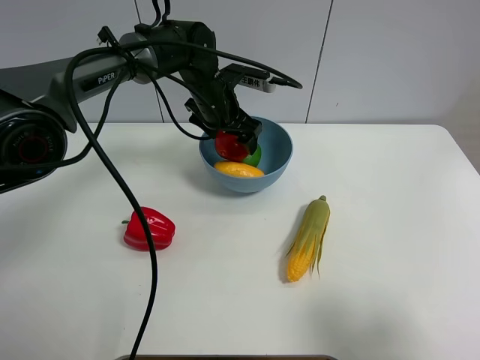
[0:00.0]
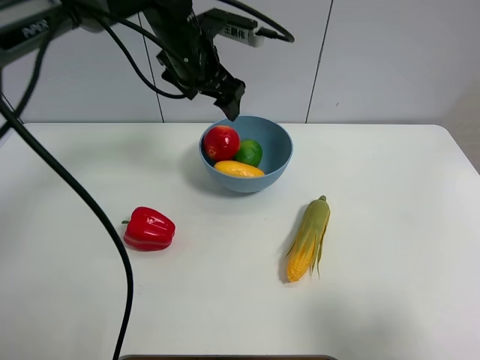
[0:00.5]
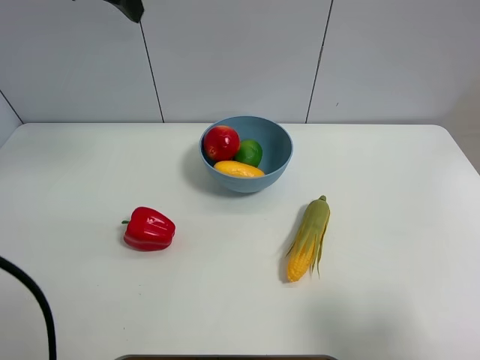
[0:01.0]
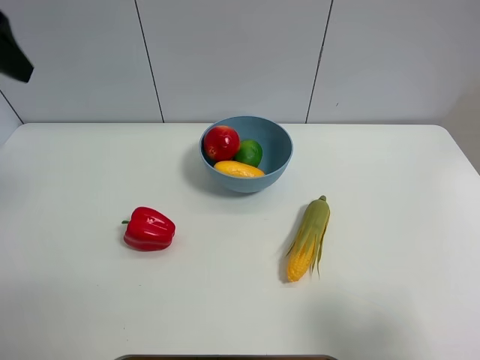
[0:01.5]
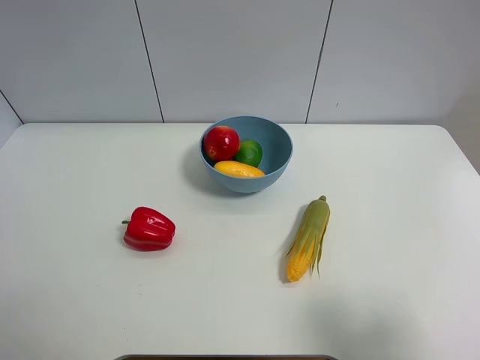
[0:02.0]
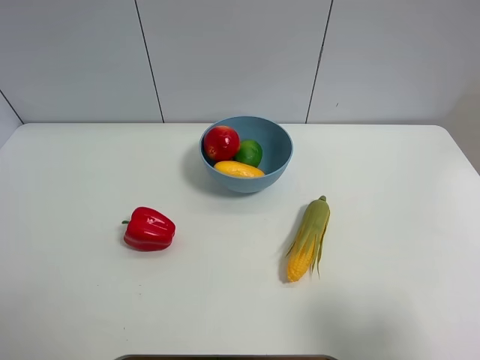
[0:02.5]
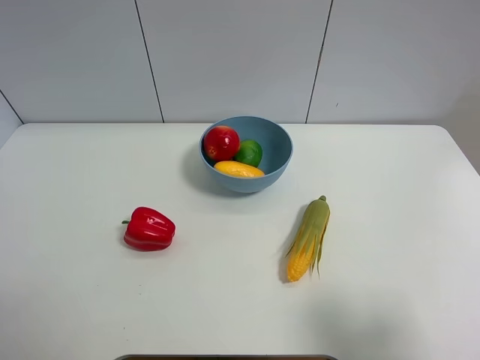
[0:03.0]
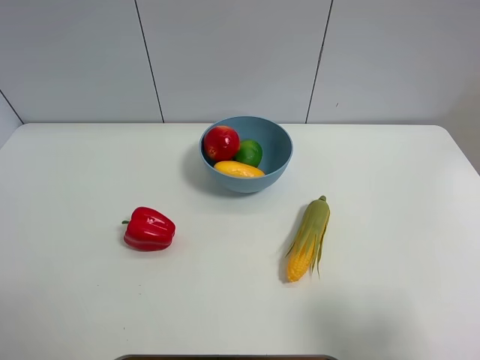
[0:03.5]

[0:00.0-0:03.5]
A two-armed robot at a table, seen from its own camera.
Task of the whole recording: Put the three fruits on the table into a bowl.
0:00.0 to 0:02.0: The left gripper shifts some 50 cm backward, to the left and upward.

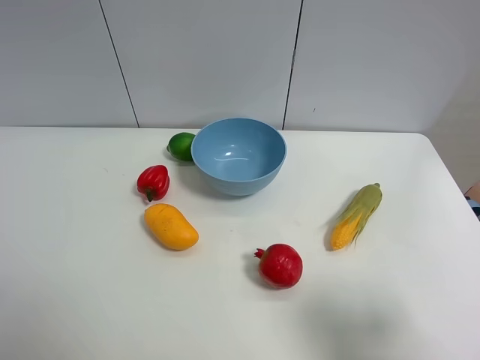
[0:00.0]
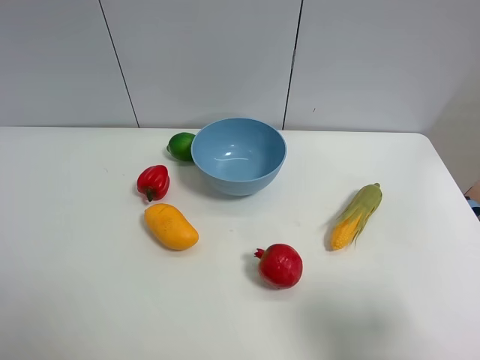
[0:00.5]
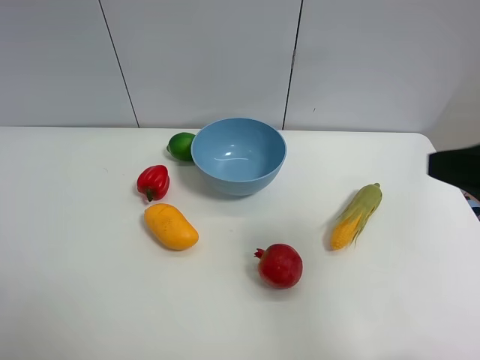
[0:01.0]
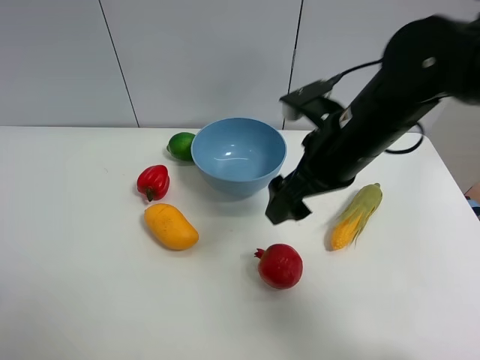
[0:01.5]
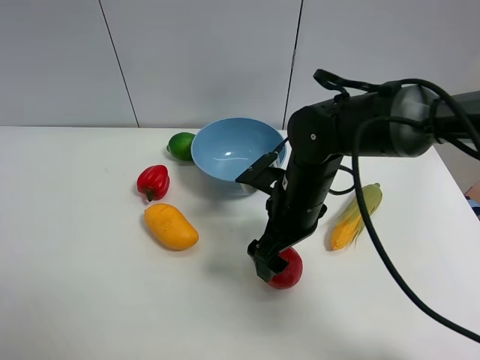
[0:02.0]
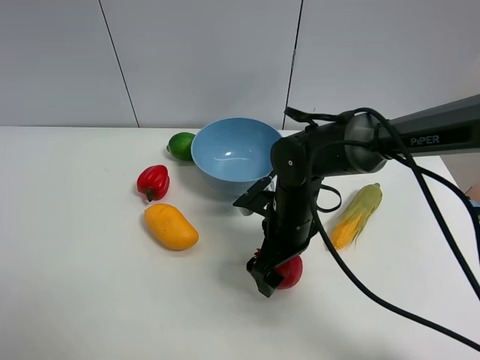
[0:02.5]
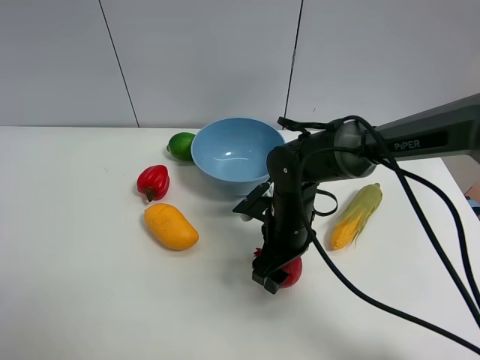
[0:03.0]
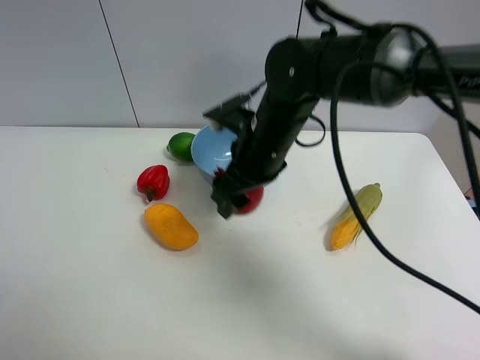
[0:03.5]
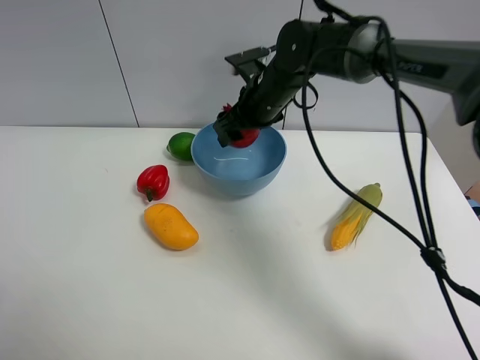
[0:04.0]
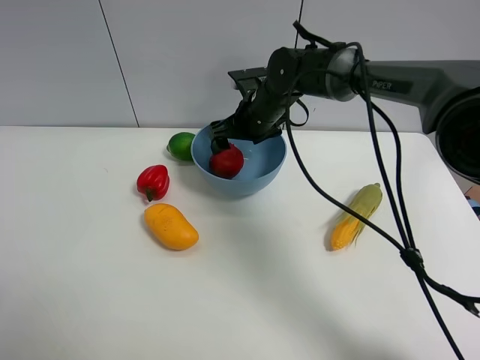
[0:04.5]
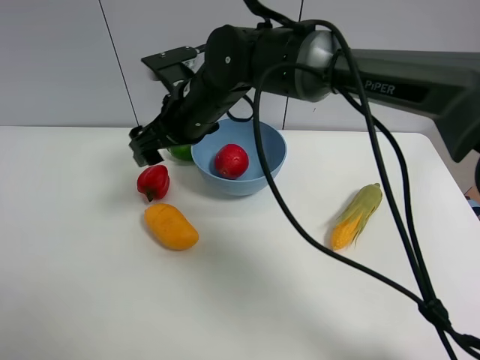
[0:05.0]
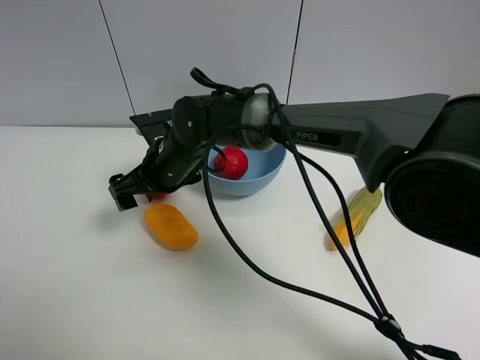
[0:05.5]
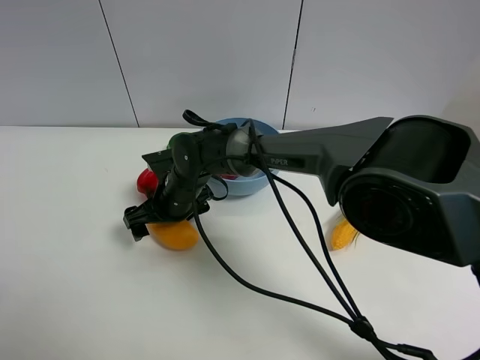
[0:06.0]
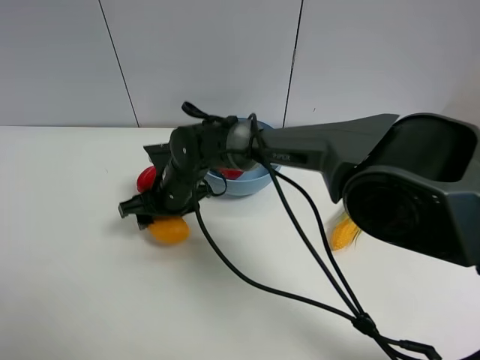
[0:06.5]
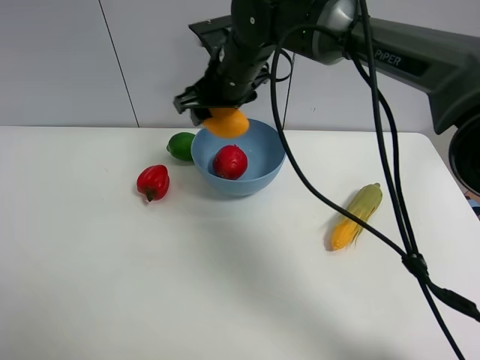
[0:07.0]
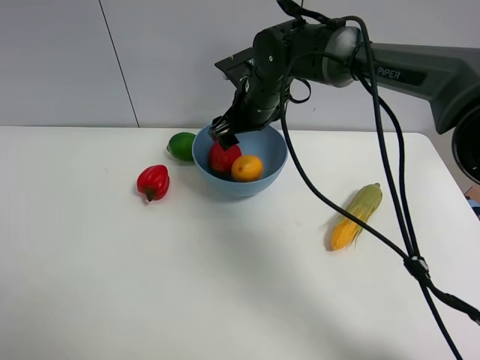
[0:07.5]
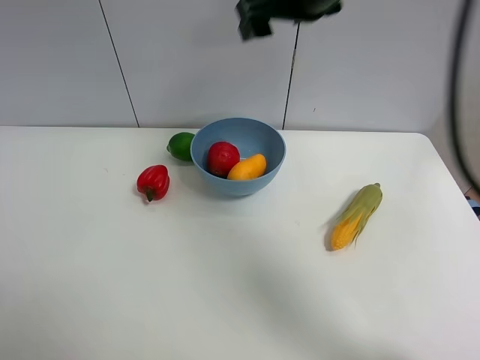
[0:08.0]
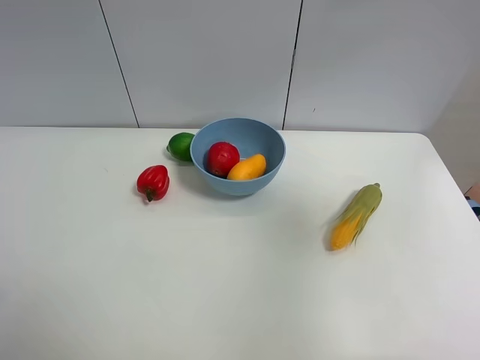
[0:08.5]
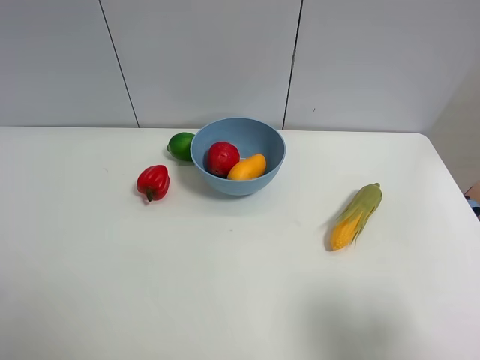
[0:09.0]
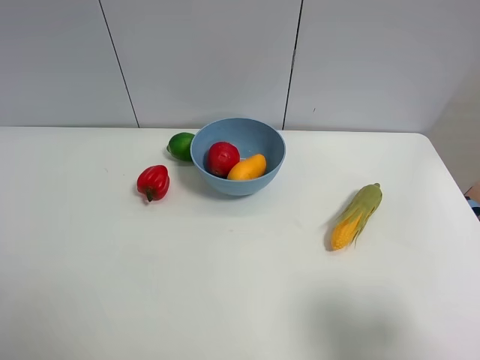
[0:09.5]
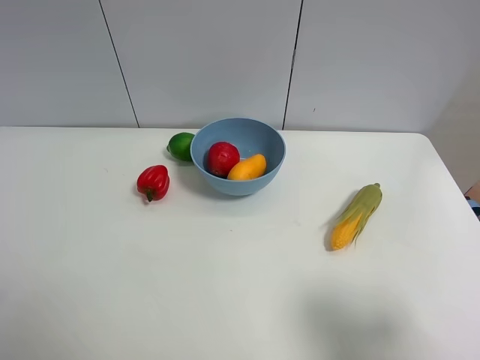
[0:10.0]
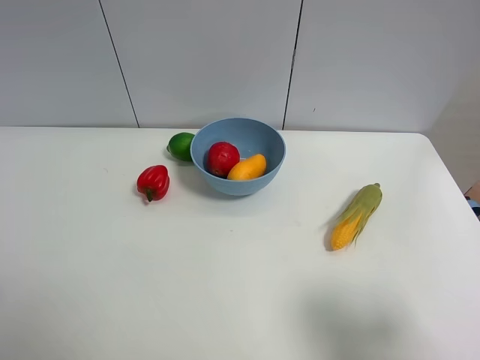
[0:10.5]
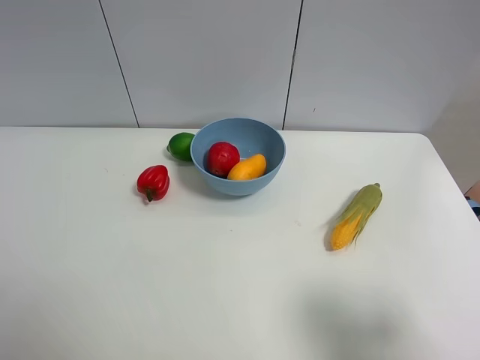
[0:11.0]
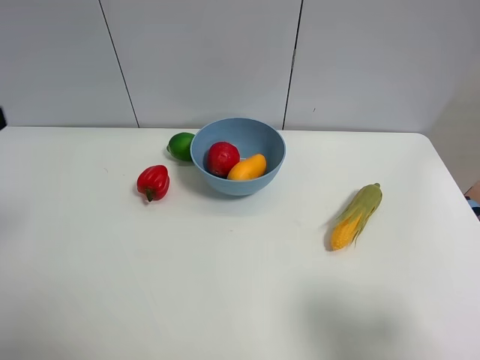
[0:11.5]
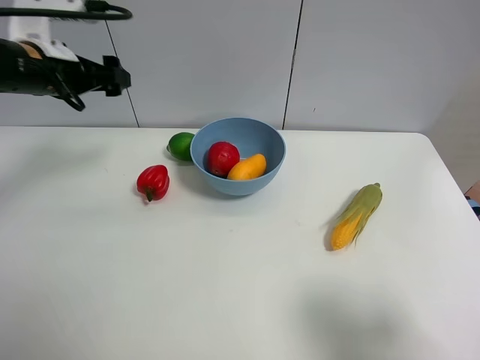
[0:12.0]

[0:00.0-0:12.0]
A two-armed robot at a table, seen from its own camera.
Task of the whole recording: Put the three fruits on the table into a bowl.
Step, 0:00.0 to 0:02.5: Grasp the pomegranate with right gripper.
Step, 0:03.0 to 0:04.5: Place the pomegranate in the blue bowl with right gripper.
Step, 0:05.0 to 0:06.0: Grasp the mango with right gripper.
Step, 0:06.5 to 0:07.0: Place the mango in the blue bowl with right gripper.
0:00.0 to 0:02.0: The right gripper moves forward, to the left and downward, about 35 cm.
0:02.0 to 0:04.0: The right gripper heads forward, covering some 15 cm, and closes up.
0:04.0 to 0:06.0: The right gripper moves to the left, downward and backward, approximately 20 cm, and opens its fingers.
0:06.0 to 0:08.0: The right gripper swings up and down, some 30 cm each way, with 2 reversals, and closes its fingers.
0:08.0 to 0:10.0: The right gripper heads backward, to the right and downward, covering some 40 cm, and opens.
0:10.0 to 0:12.0: The left gripper heads forward, covering roughly 35 cm.

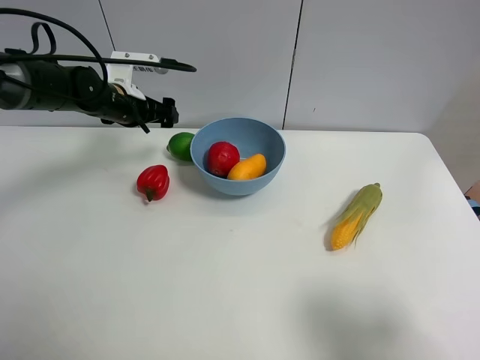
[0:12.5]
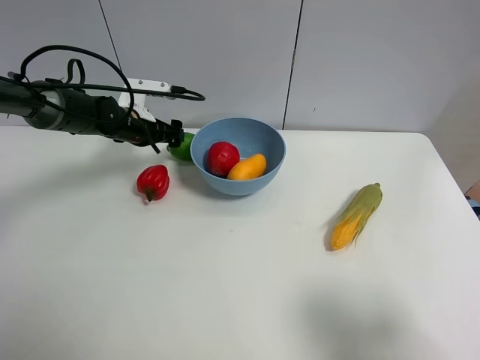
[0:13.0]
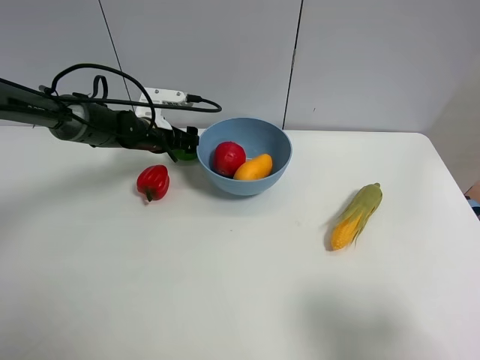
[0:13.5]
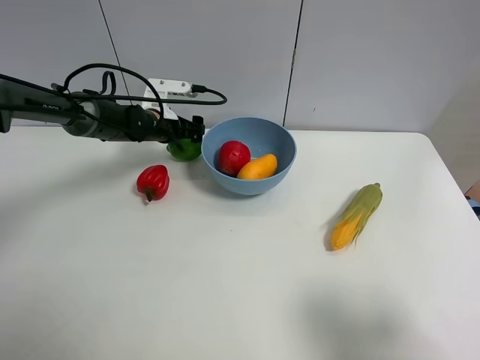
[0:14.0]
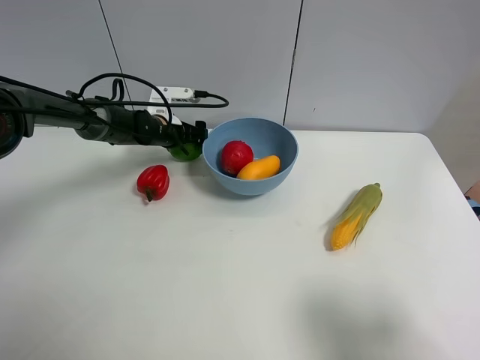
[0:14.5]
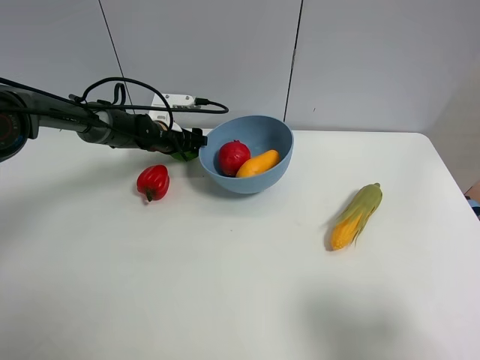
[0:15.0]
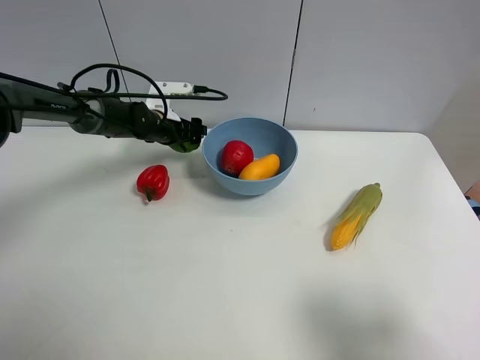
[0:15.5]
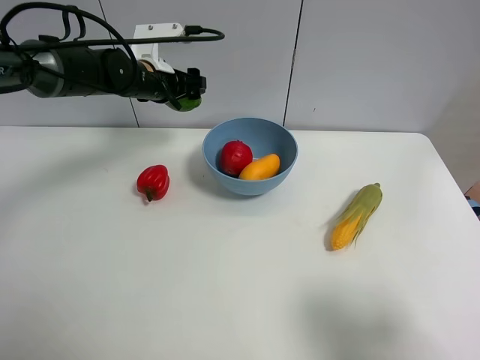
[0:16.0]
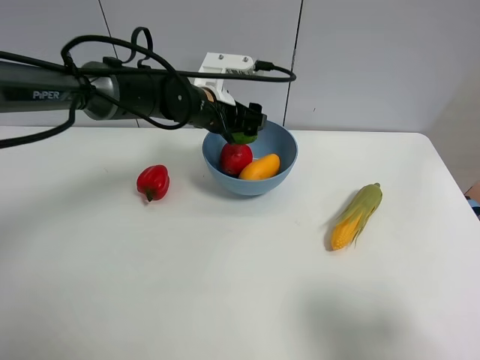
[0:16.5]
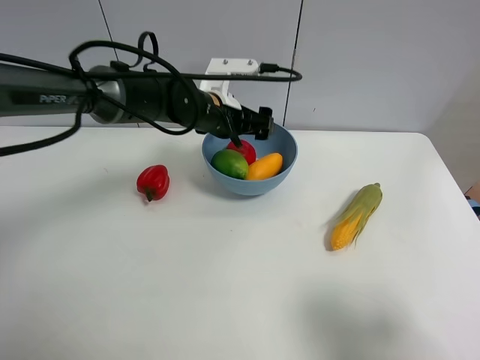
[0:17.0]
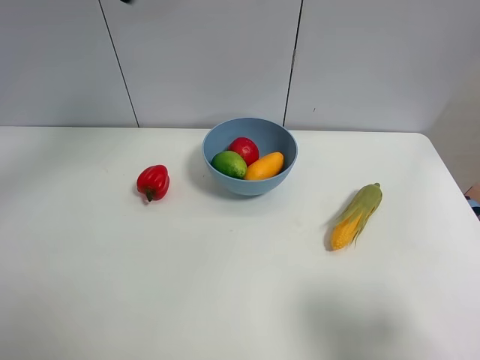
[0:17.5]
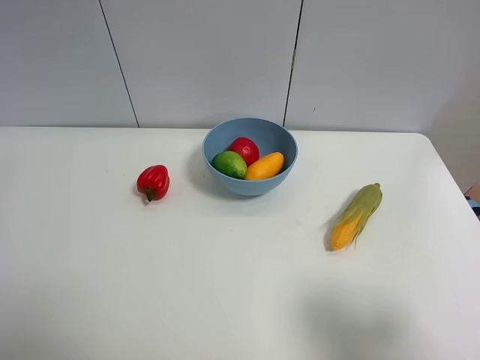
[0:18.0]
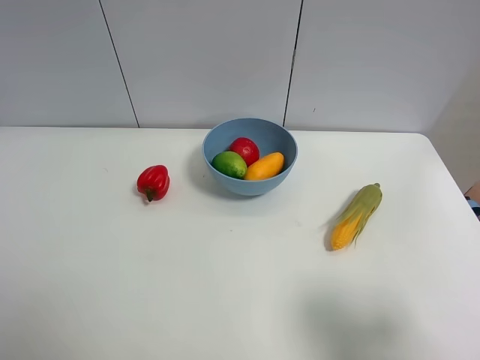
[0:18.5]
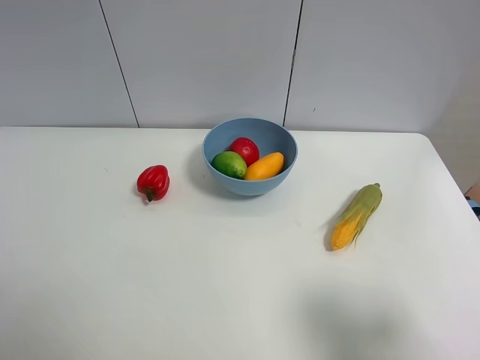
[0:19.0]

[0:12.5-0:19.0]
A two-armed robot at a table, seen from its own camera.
Task of the whole recording: Put the three fruits on the table into a bowl.
Step, 0:12.5 to 0:14.5: Grasp the green lemon with left gripper.
Step, 0:15.0 to 0:17.0: Place the green lemon in the blue bowl with left gripper.
0:12.5 to 0:14.5: The left gripper travels downward by some 10 cm.
0:14.5 to 0:17.0: The left gripper shifts some 20 cm to the right, upward and backward, and closes, then opens again.
0:17.0 to 0:19.0: The left gripper heads backward and to the left, covering approximately 50 cm.

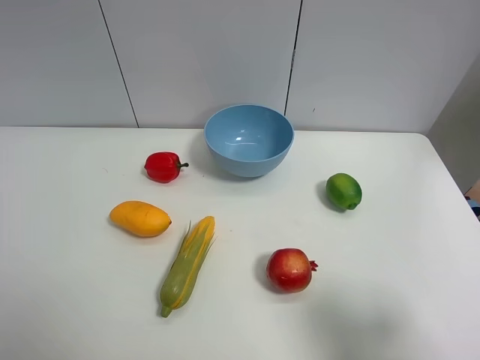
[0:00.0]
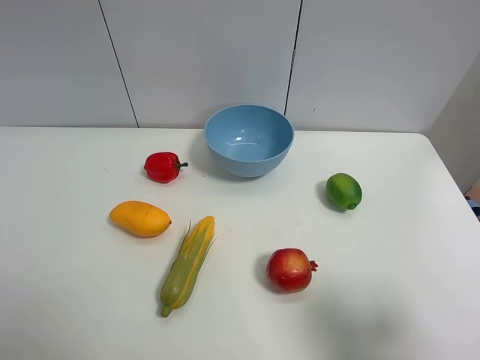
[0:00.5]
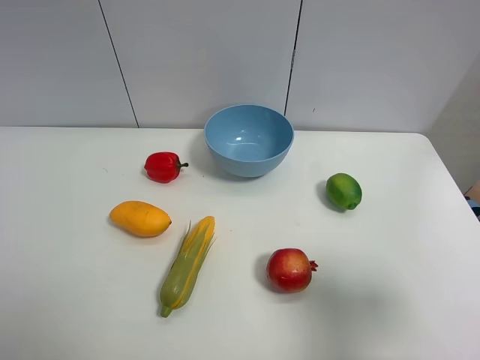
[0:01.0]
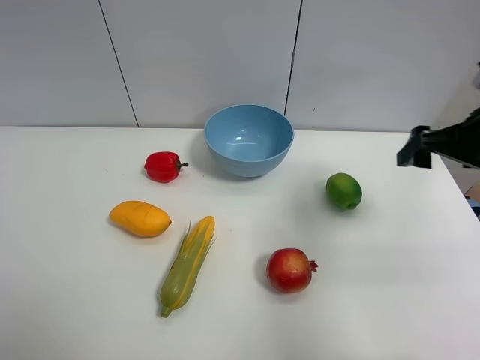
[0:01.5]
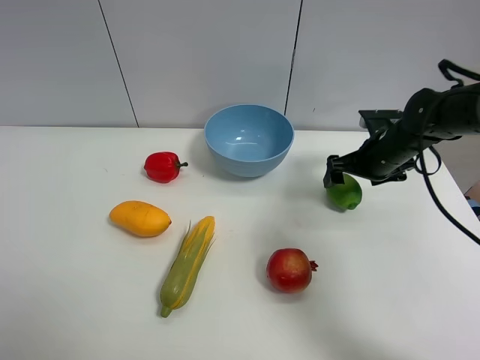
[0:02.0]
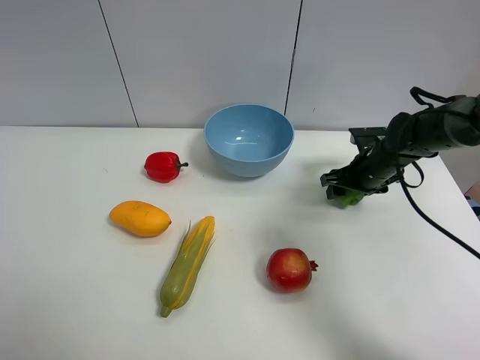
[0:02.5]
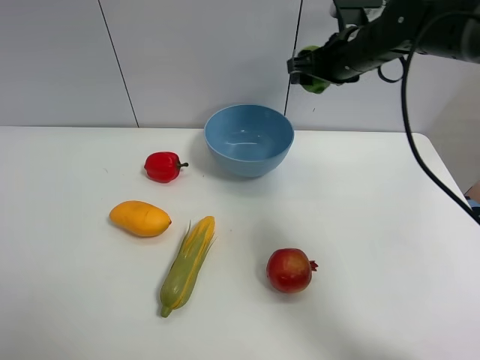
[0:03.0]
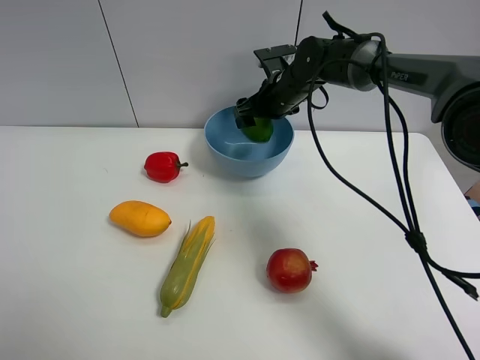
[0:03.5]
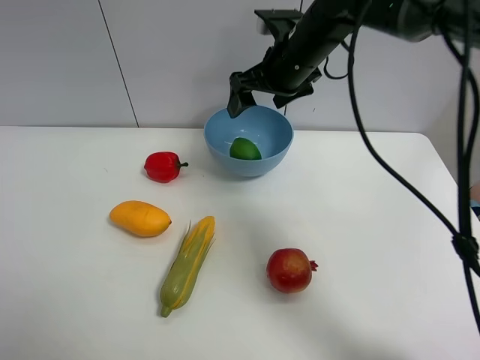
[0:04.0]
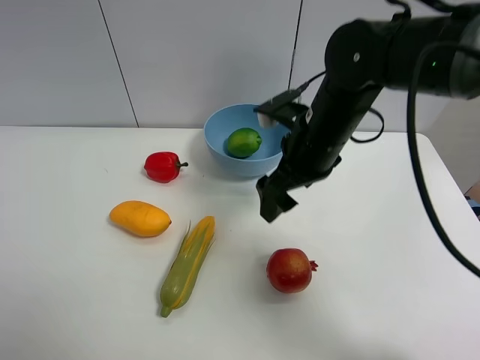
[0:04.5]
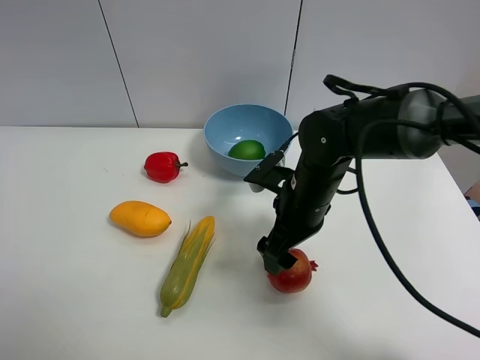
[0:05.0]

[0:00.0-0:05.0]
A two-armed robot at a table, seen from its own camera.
Task of the whole recording: Put the three fruits on the table into a bowl.
Step, 0:00.0 to 0:02.0: Grasp the green lemon with right gripper.
Step, 0:02.5 to 0:03.5: Place the green lemon in the blue bowl with right gripper.
0:00.0 to 0:02.5: The right gripper shifts some 40 cm forward and downward, and closes its fingers.
0:02.5 to 0:05.0: The right gripper heads to the left and backward, covering roughly 20 cm, and opens.
